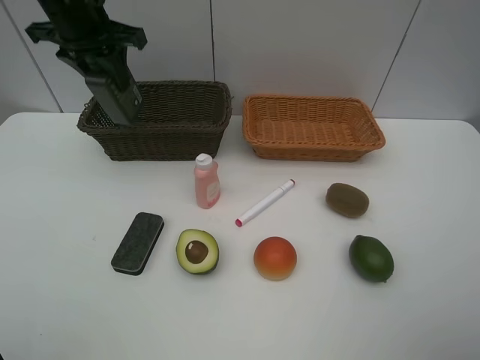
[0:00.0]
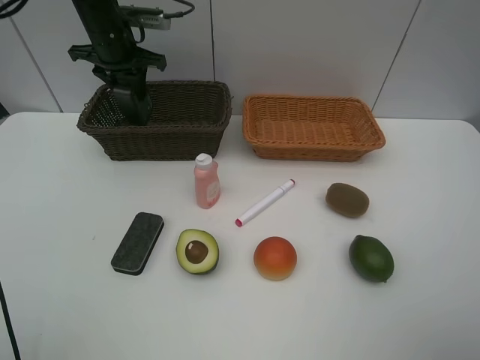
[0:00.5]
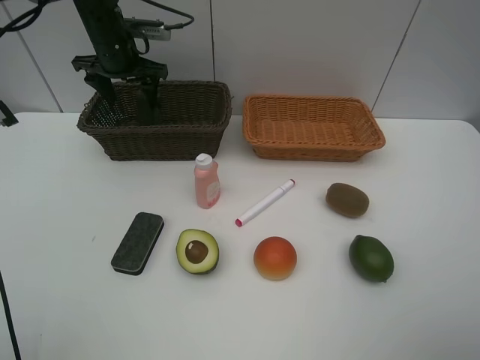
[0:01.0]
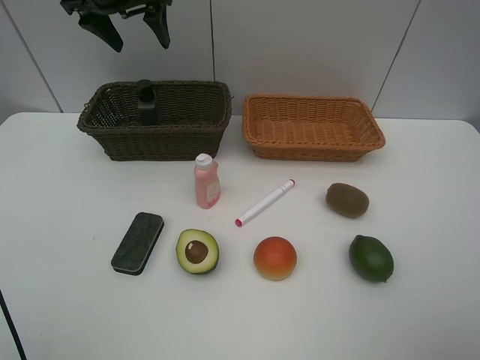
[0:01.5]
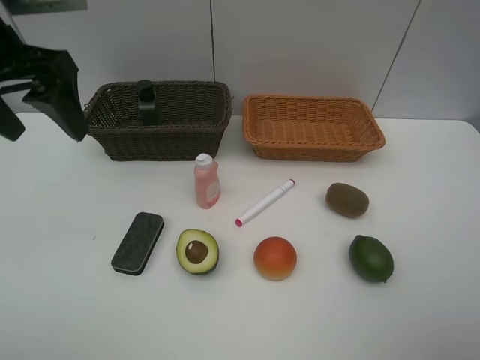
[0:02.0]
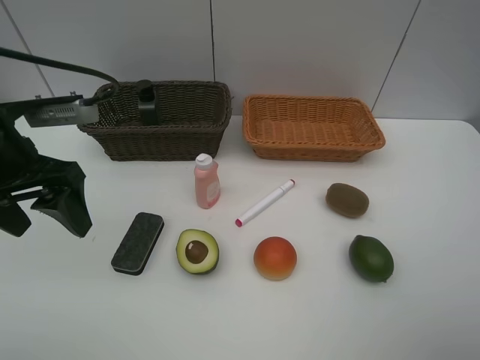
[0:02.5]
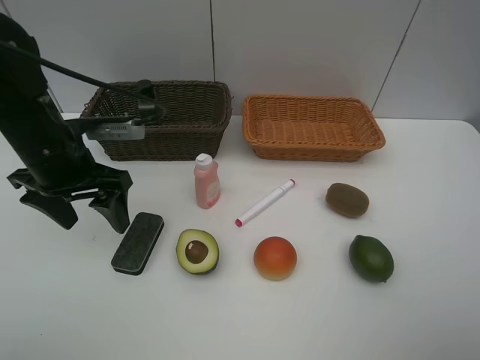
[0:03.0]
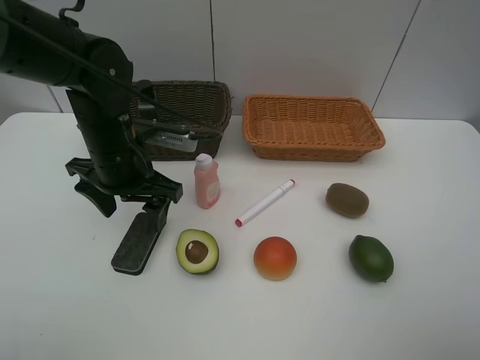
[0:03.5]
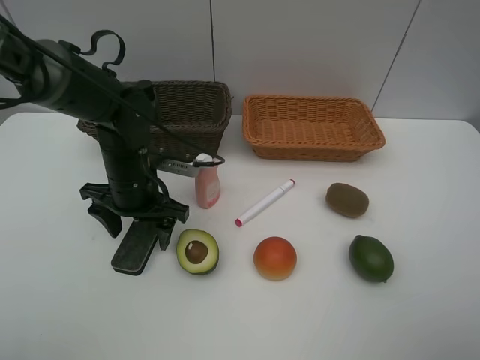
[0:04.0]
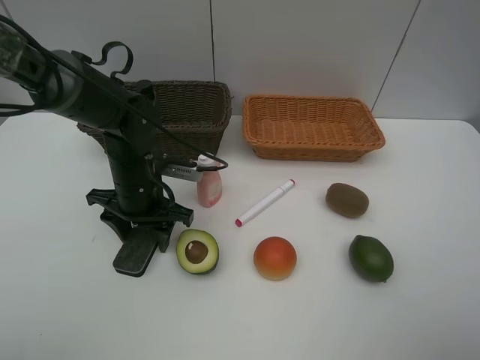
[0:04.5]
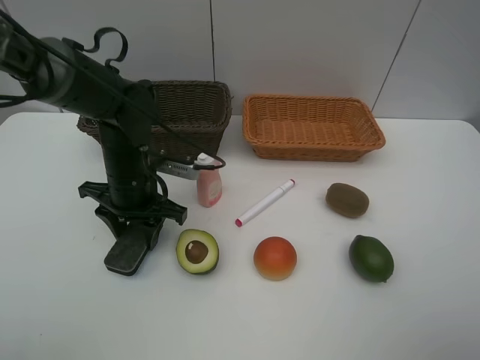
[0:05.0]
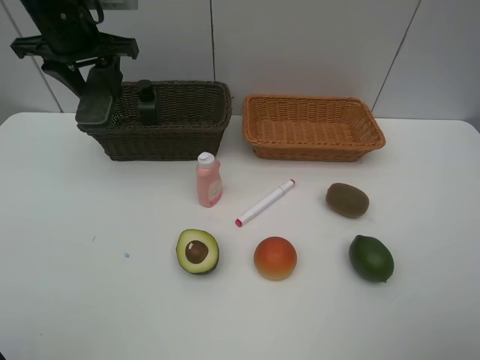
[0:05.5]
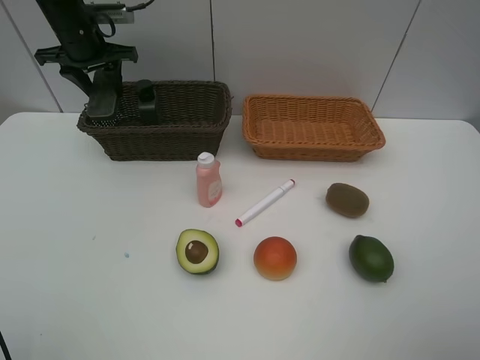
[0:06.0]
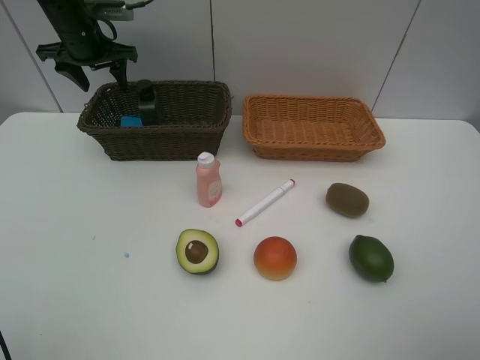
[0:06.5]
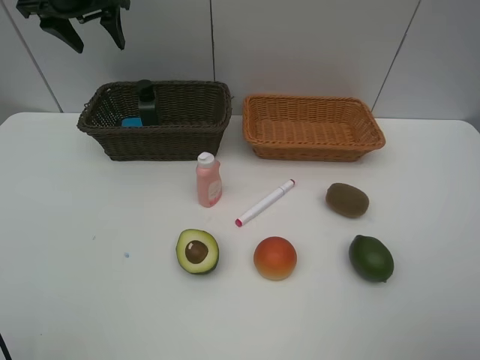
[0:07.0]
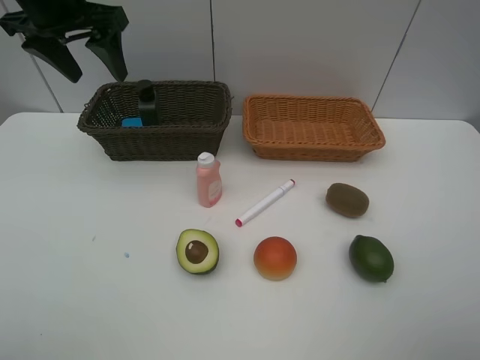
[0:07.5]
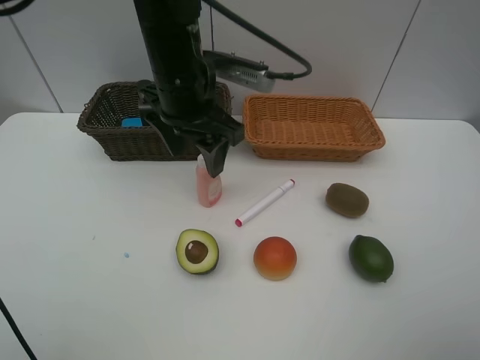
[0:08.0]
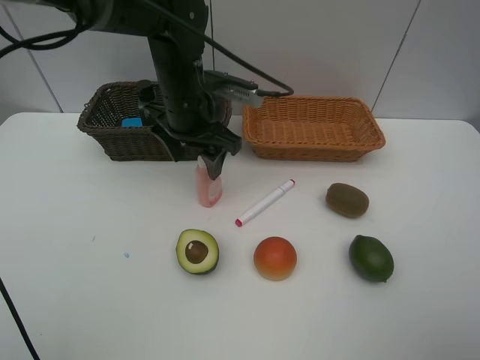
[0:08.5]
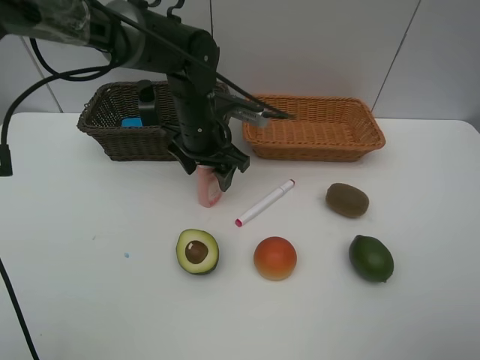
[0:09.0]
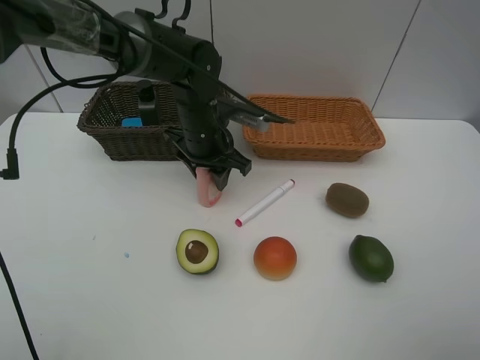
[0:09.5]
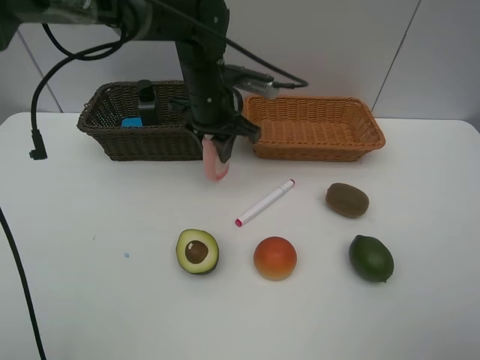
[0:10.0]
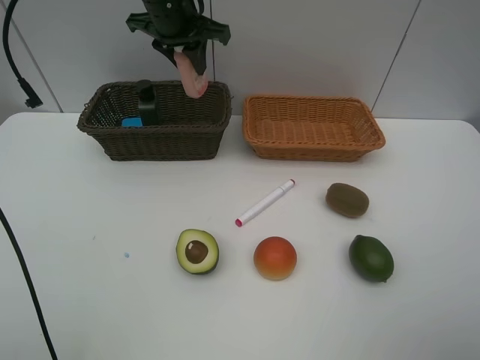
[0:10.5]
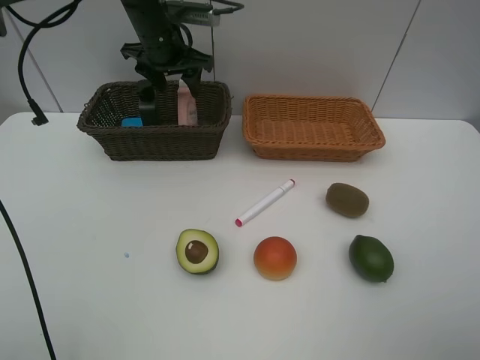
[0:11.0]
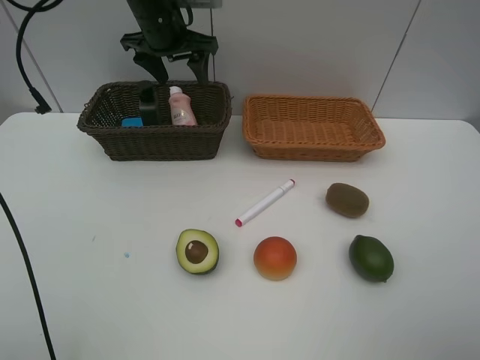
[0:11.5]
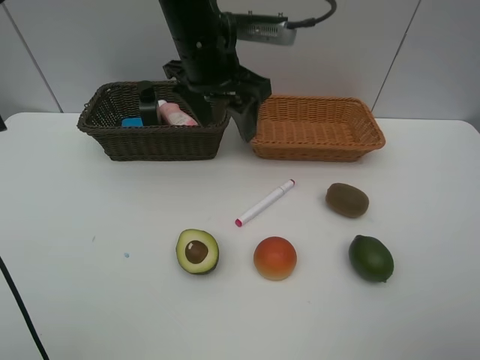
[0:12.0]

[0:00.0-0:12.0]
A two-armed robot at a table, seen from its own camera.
Task of the whole recording: Place multiple objects separately in different baskets.
Step, 0:00.0 to 0:01.0: Place the hard facial cleanser in the dark basket with left gripper.
Step, 0:01.5 to 0:05.0: Pick up blackboard eraser with left gripper.
Step, 0:05.5 to 0:06.0: Place the blackboard eraser in the dark basket with left gripper.
Step, 0:06.5 to 0:10.0: Pick up the laundry detergent with left gripper.
Step, 0:10.5 to 0:11.5: Place the laundry detergent in the dark basket with left gripper.
0:00.0 to 0:02.0: The left gripper moves backward, about 15 cm, and opens up.
0:02.0 to 0:04.0: The left gripper moves downward and to the right, approximately 25 cm.
0:04.0 to 0:06.0: The left gripper heads forward, upward and to the left, covering approximately 25 cm, and closes.
0:06.0 to 0:08.0: The left gripper goes about 25 cm to the right and backward.
0:08.0 to 0:10.0: The left gripper shifts approximately 10 cm forward and downward, and closes.
0:10.0 to 0:12.0: The left gripper travels upward by approximately 10 cm, reaches roughly 10 cm forward, then returns, and opens its fingers.

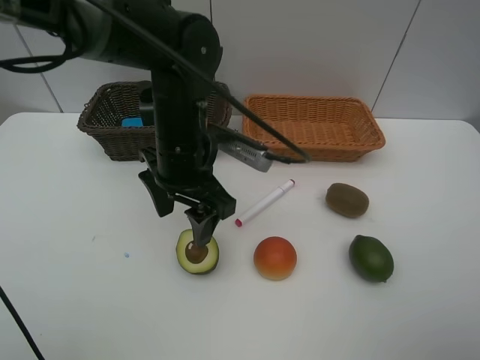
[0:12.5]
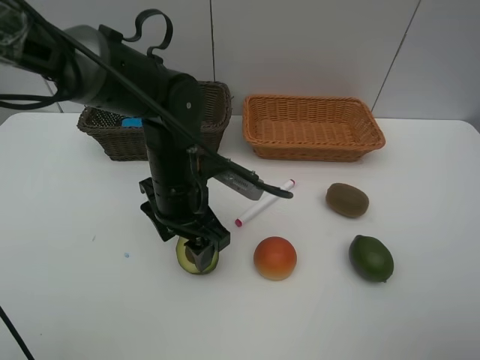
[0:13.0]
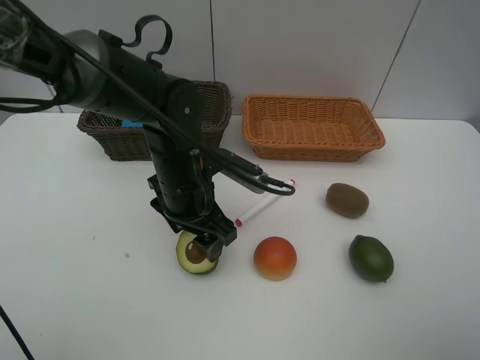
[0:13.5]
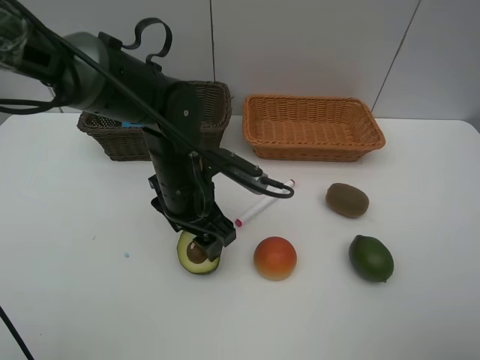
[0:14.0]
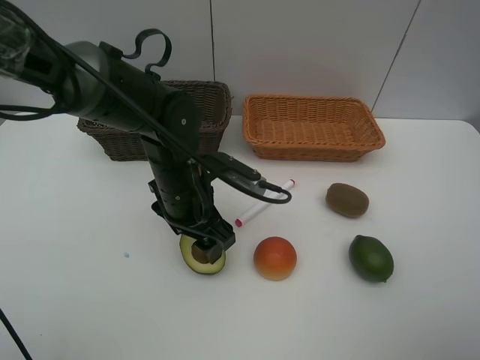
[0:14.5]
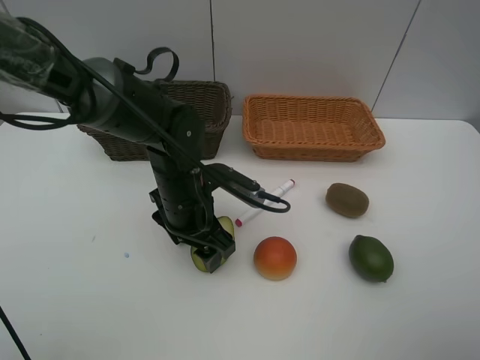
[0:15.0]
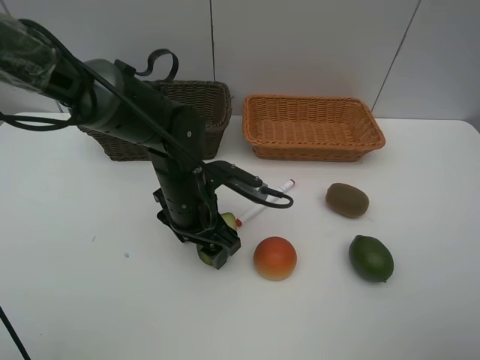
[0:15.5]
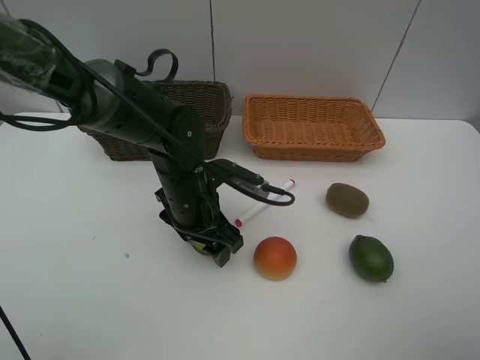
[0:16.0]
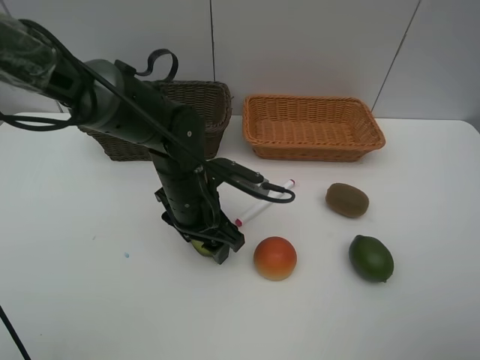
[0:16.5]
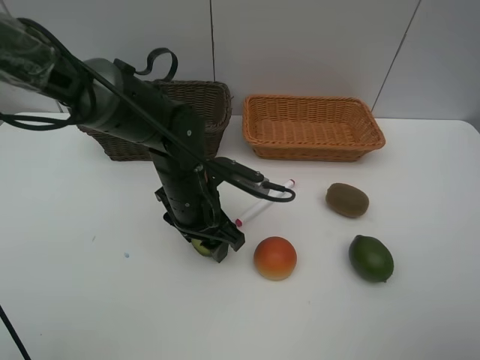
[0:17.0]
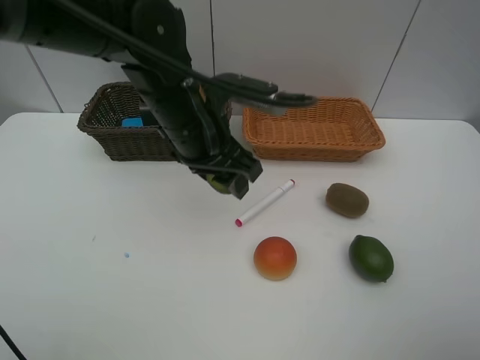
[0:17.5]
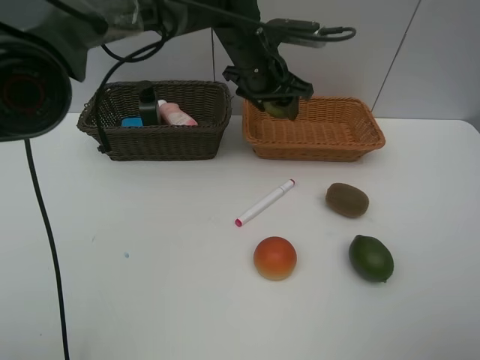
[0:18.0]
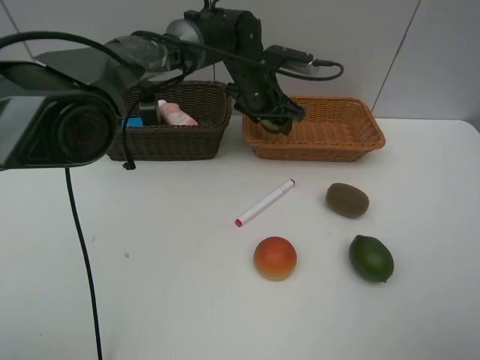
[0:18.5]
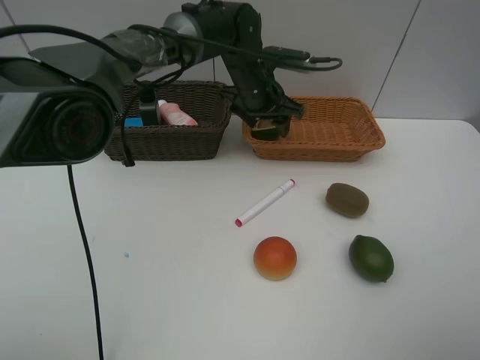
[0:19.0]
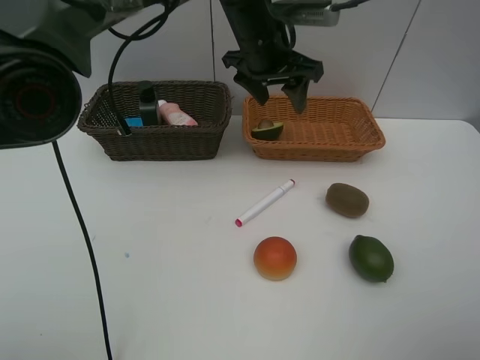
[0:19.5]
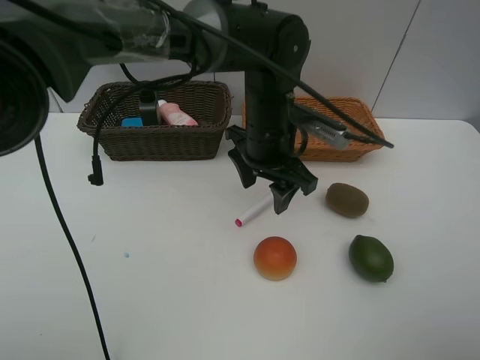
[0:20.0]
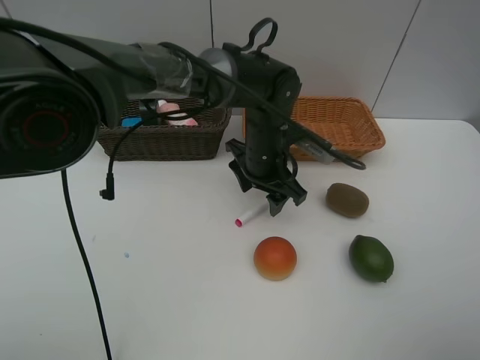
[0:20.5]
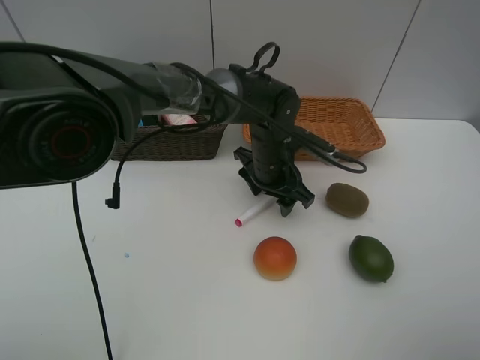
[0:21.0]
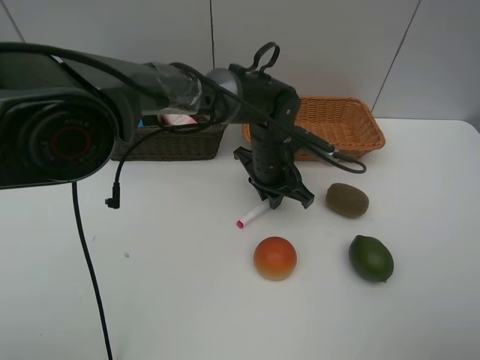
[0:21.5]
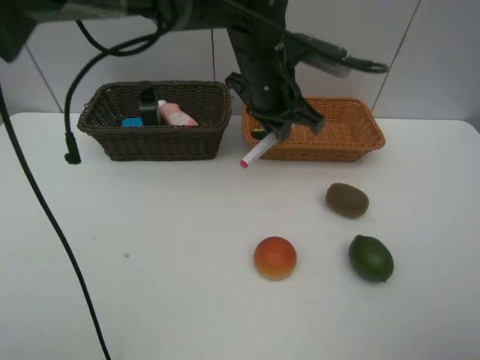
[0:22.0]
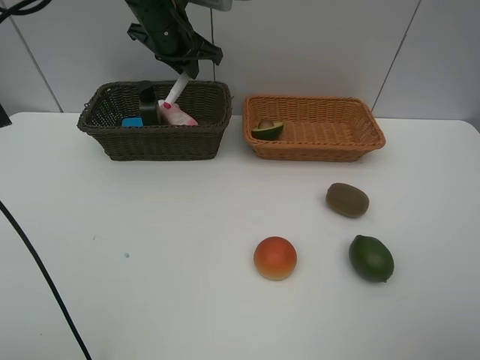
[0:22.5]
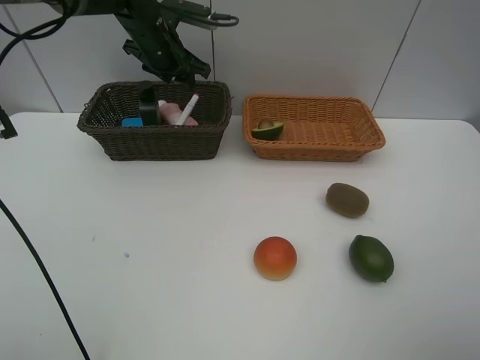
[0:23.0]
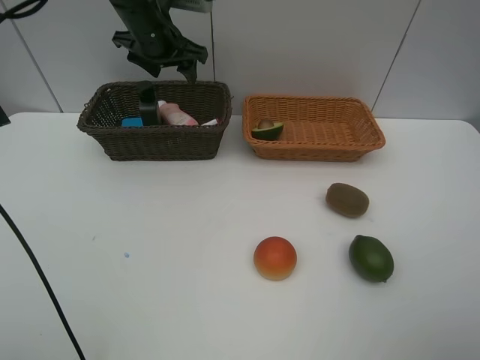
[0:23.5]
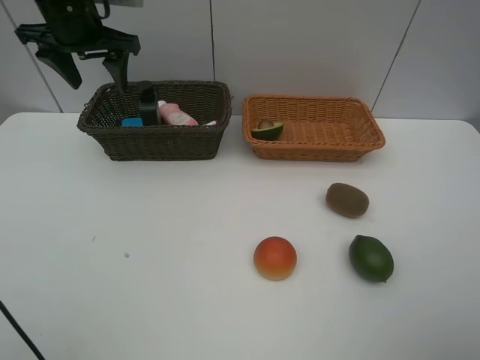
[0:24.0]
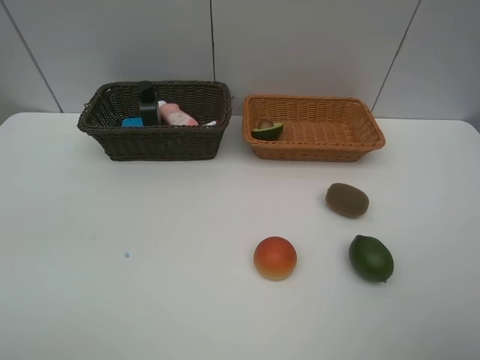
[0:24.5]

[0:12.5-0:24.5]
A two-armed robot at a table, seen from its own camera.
Task of the whole recording: Place multiple objects separately in different baskets.
Step, 0:12.5 to 0:17.0: Pick up the avocado with left gripper.
Step, 0:17.5 to 0:18.5: Place the avocado in the light basket with left gripper.
Step, 0:19.0 to 0:21.5: Pick up the red marker with left gripper.
Step, 0:22.0 to 0:23.0: Place the red marker in the dark basket with left gripper.
0:12.5 to 0:14.5: The left gripper heads downward, covering some 5 cm.
0:14.5 to 0:16.5: There are only small adjustments of the grippers.
0:16.5 to 0:18.5: The left gripper heads forward and to the right, covering about 20 cm.
0:18.5 to 0:20.5: The left gripper heads backward, covering about 10 cm, and reaches some 10 cm upward, then returns.
0:20.5 to 0:22.5: The left gripper heads to the left, upward and forward, covering about 25 cm, and closes.
0:22.5 to 0:24.5: The left gripper is displaced backward and to the left by roughly 30 cm, and opens up.

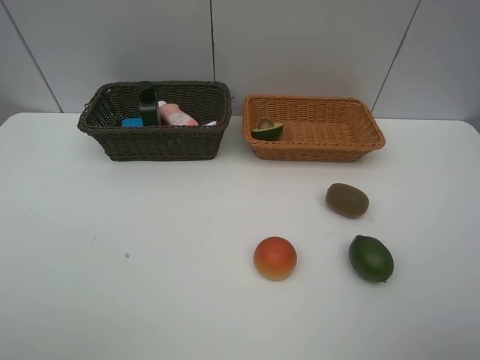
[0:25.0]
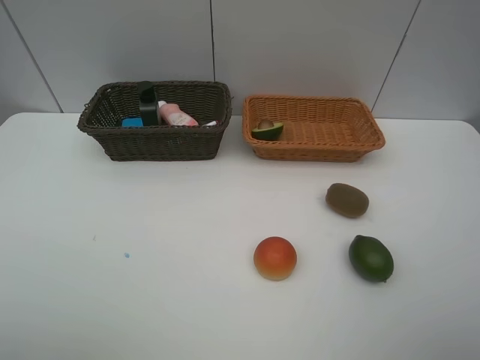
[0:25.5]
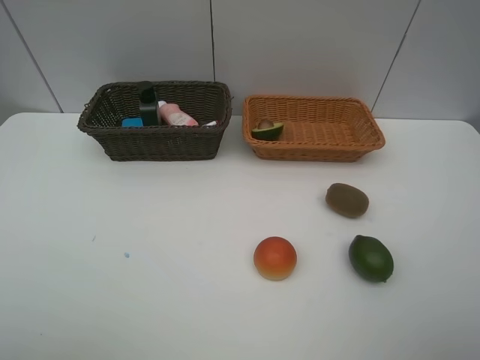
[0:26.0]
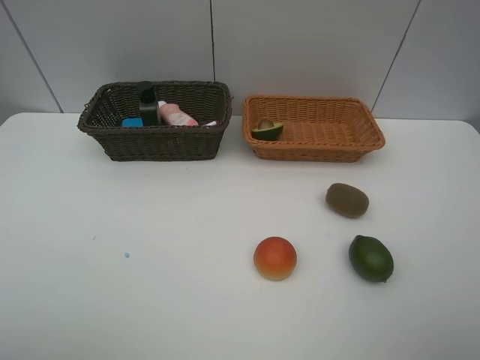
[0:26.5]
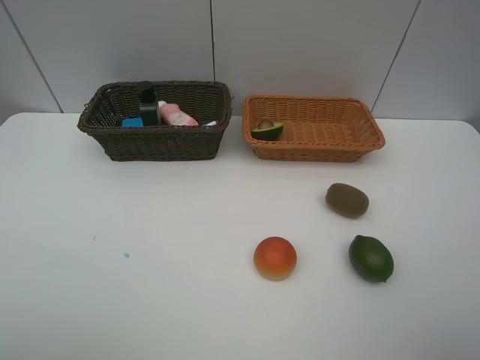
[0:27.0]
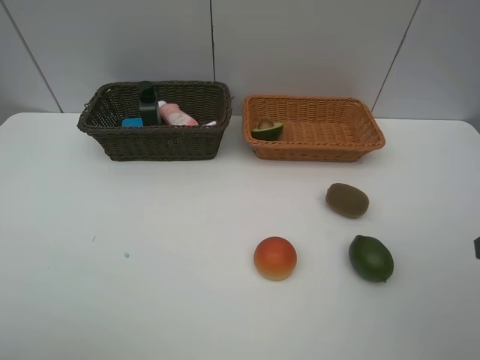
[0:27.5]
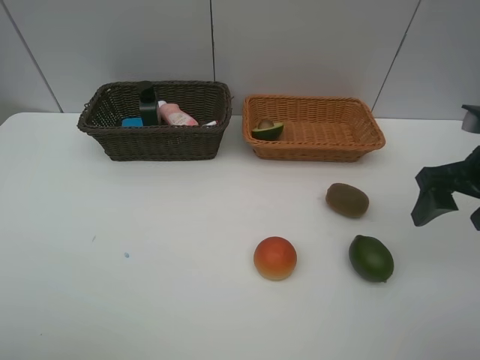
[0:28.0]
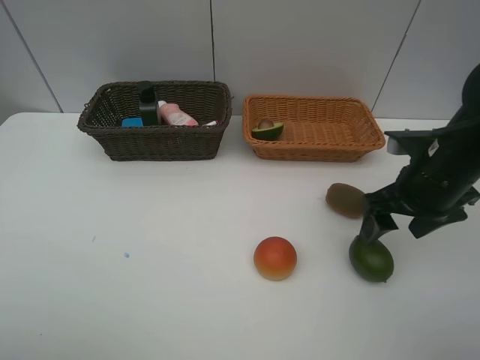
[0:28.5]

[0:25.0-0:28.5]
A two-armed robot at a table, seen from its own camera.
Task of the whole recording: Place multiple objects separately in different baskets.
0:27.0 to 0:28.5: The right gripper heads forward and downward, covering approximately 25 cm.
